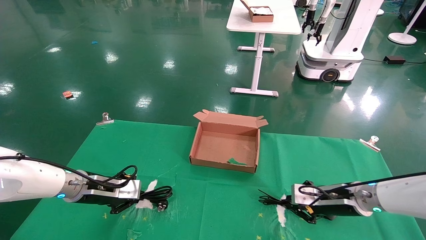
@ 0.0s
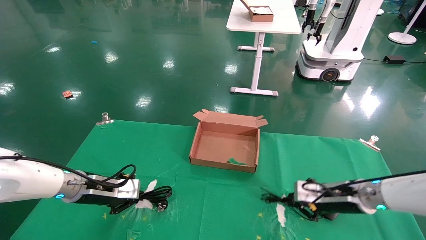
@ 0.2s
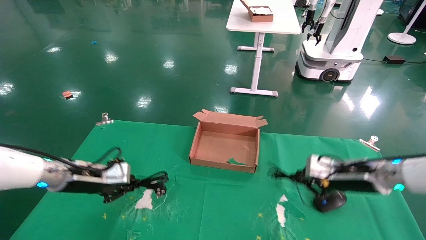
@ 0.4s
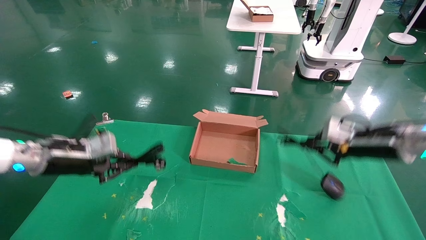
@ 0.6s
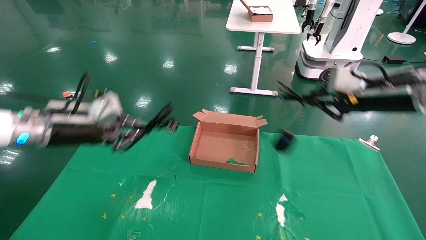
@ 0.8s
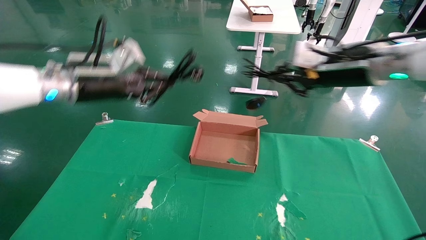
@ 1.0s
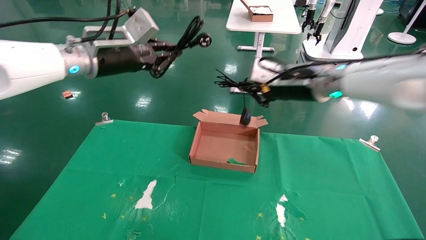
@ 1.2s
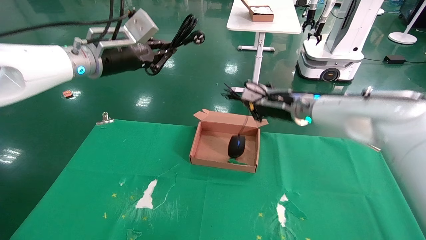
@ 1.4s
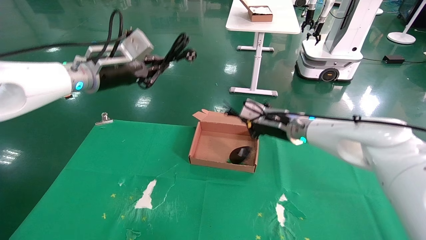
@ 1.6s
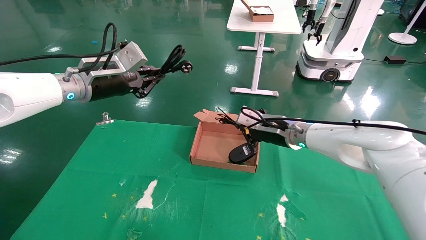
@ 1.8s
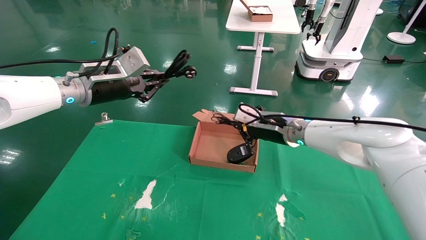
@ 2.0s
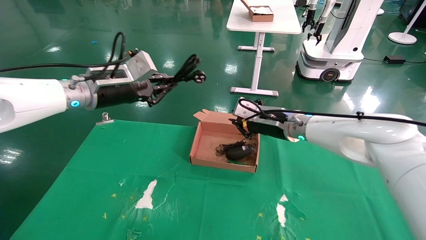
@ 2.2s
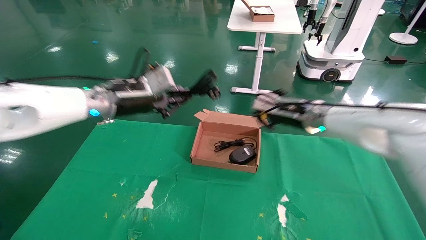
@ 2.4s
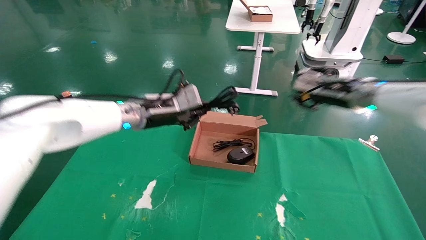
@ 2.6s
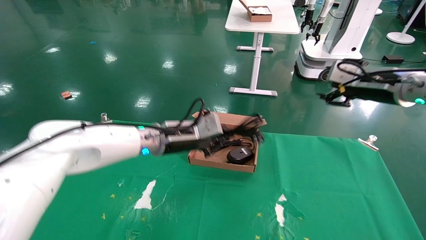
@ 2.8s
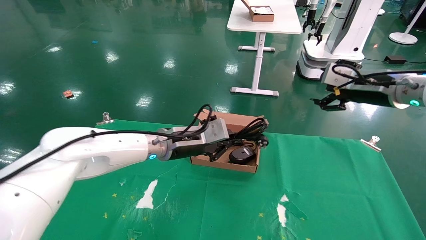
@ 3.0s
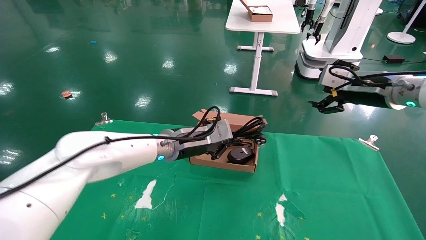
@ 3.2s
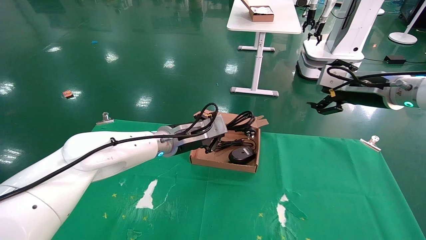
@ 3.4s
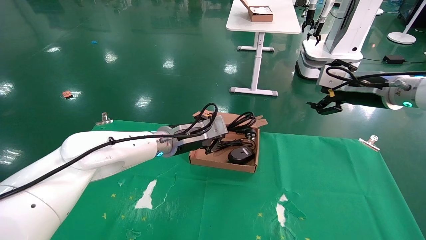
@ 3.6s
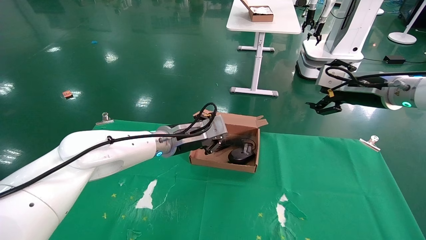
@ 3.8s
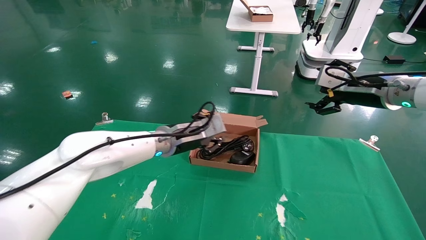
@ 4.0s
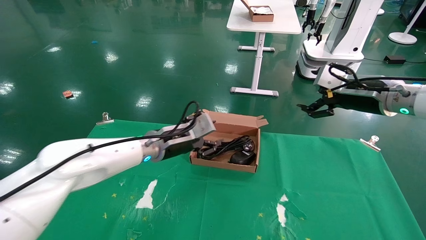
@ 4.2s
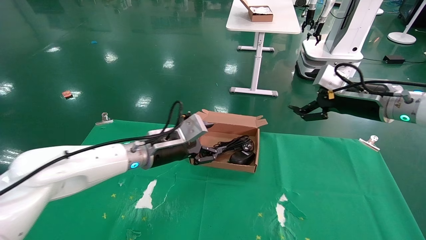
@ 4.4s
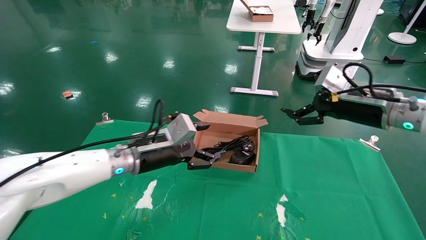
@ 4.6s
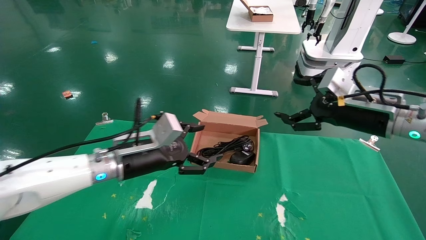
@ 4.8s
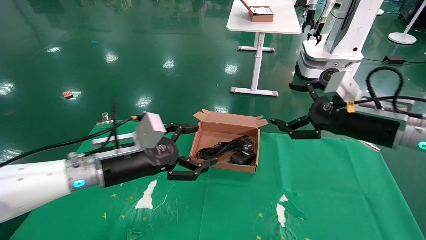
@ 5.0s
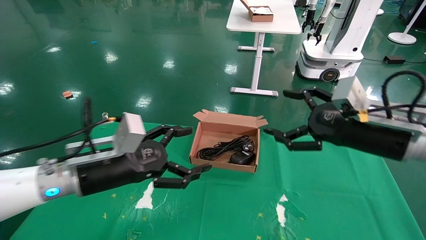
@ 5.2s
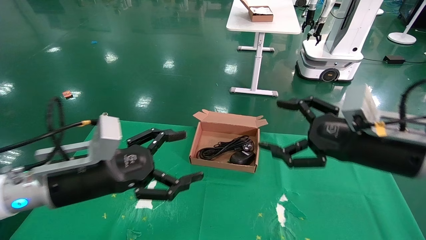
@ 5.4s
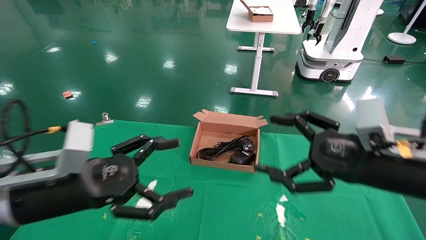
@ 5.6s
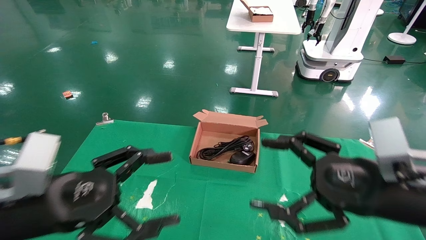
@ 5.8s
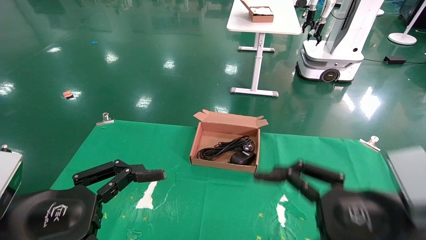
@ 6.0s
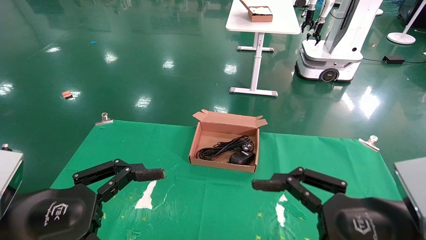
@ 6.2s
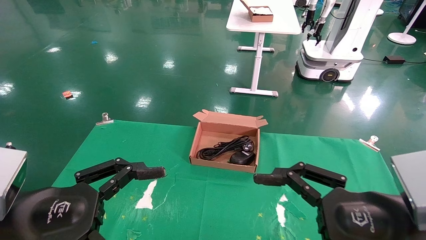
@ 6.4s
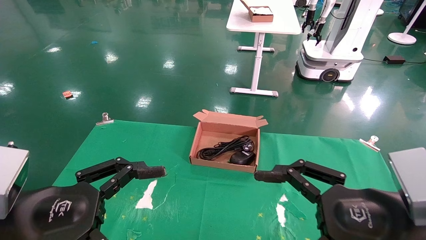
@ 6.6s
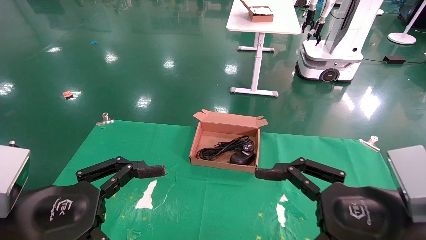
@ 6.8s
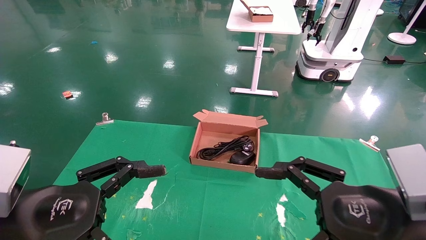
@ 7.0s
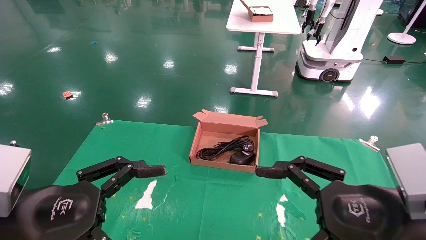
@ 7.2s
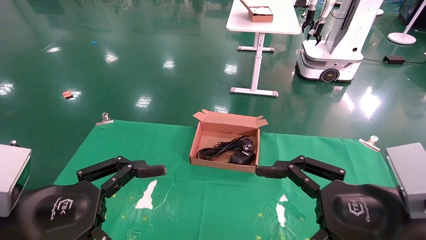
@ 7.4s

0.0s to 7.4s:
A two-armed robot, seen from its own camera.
Step, 0.0s to 5.0s: Place the mouse and power cord into the box.
0.0s to 1.4s: The right gripper is displaced upward and to the left by roughly 20 cm. Meanwhile the left gripper is displaced upward by some 25 cm.
1.4s to 3.0s: The right gripper moves to the right, approximately 15 cm, and opens its fingers. The left gripper heads downward and to the right, covering about 20 cm.
3.0s to 4.4s: The left gripper opens its fingers.
4.4s to 6.0s: The left gripper shifts about 25 cm backward and to the left, and opens up; the right gripper heads backward, covering roughly 20 cm.
6.0s to 7.4s: The two grippers keep their place.

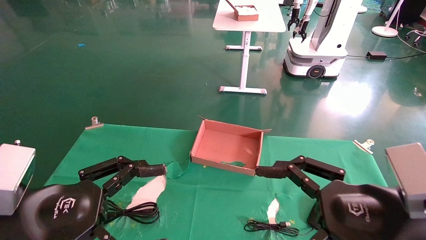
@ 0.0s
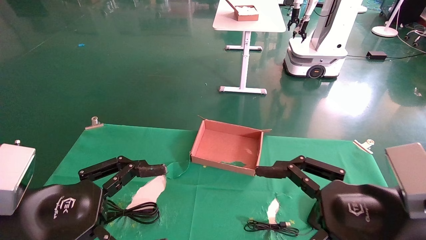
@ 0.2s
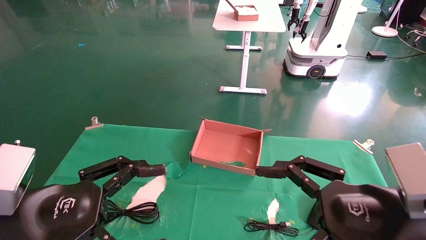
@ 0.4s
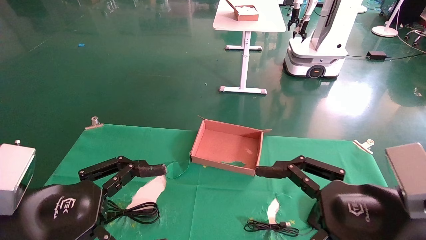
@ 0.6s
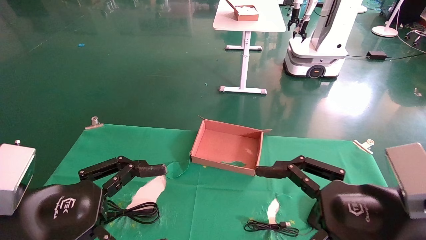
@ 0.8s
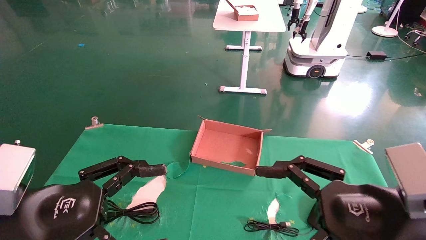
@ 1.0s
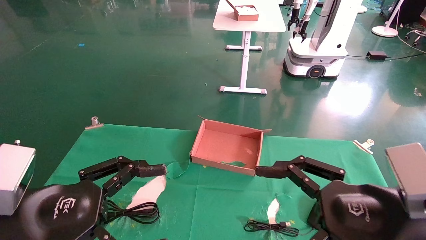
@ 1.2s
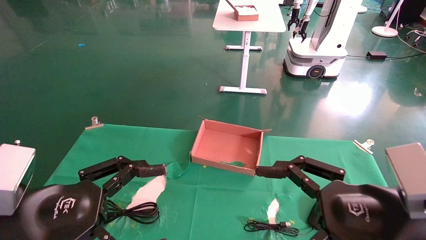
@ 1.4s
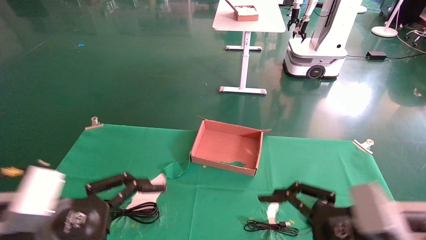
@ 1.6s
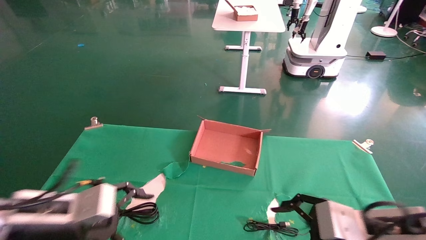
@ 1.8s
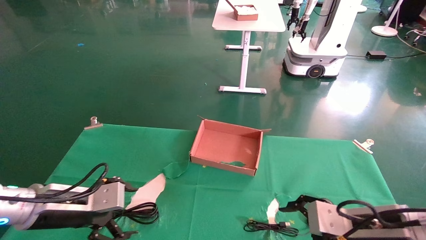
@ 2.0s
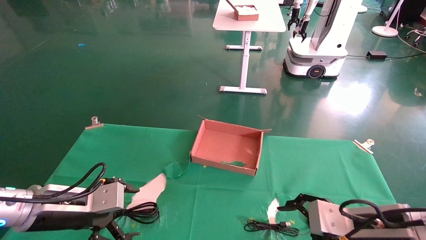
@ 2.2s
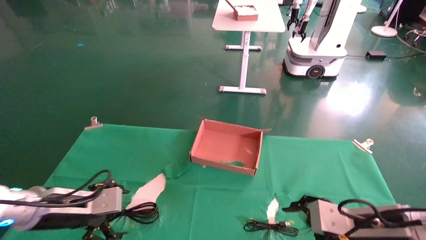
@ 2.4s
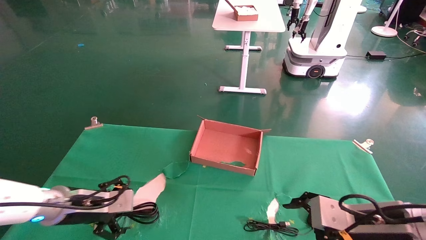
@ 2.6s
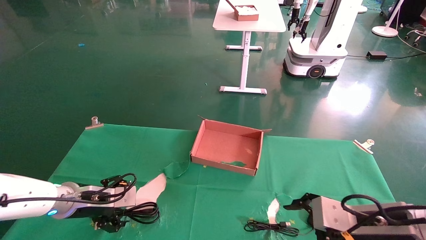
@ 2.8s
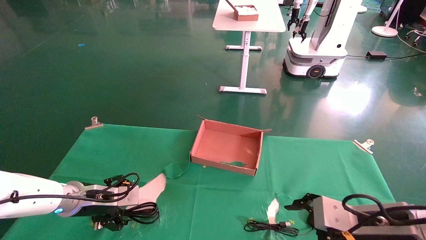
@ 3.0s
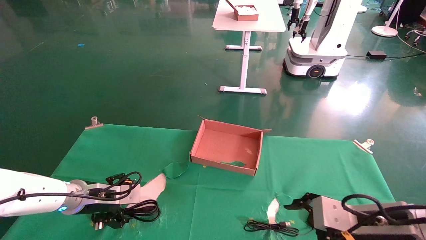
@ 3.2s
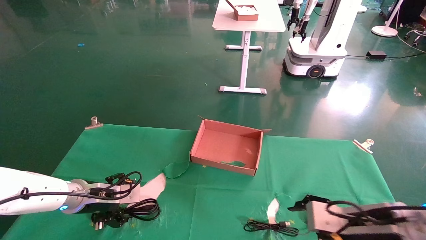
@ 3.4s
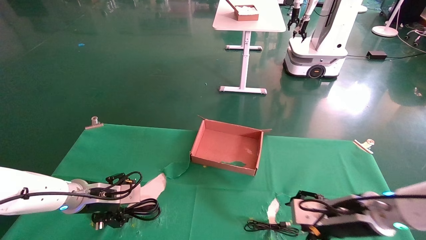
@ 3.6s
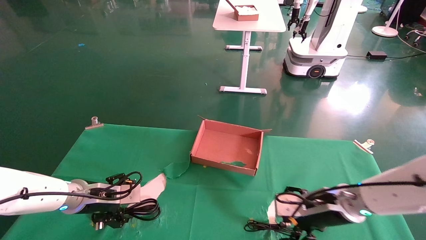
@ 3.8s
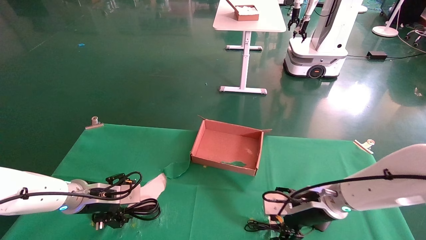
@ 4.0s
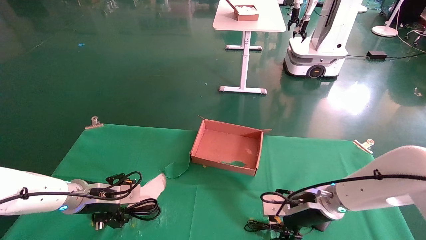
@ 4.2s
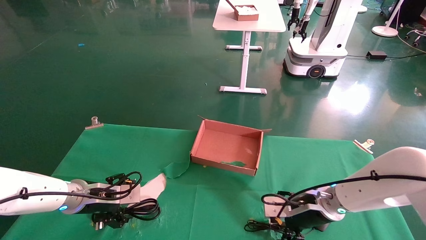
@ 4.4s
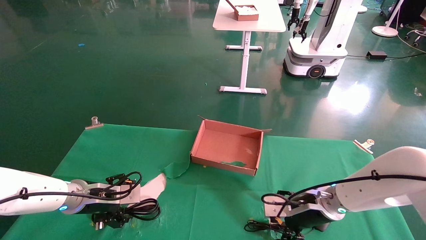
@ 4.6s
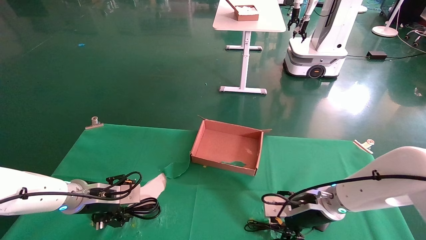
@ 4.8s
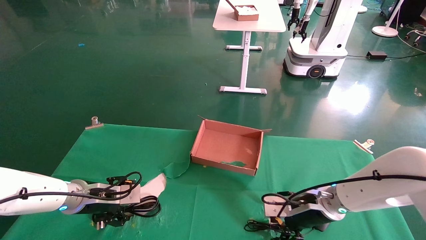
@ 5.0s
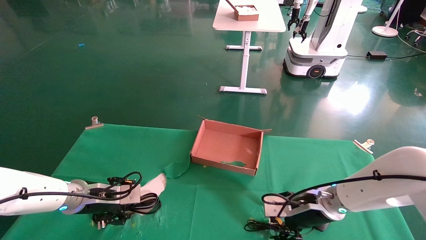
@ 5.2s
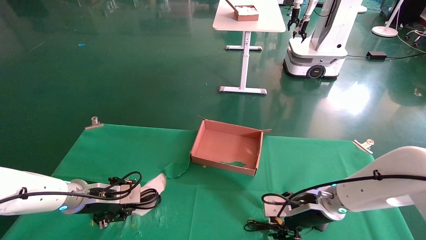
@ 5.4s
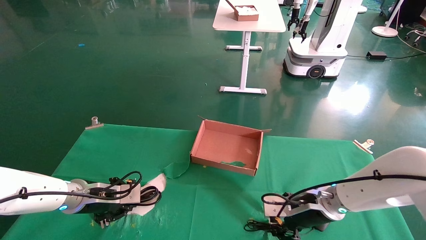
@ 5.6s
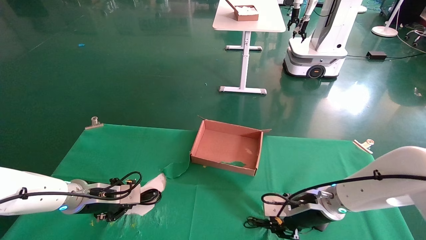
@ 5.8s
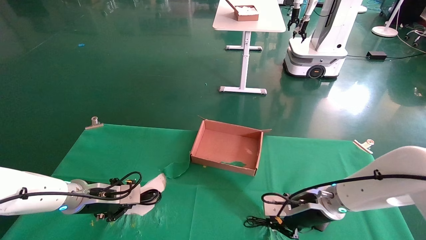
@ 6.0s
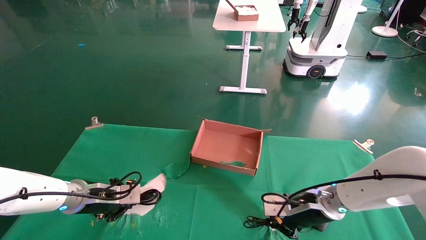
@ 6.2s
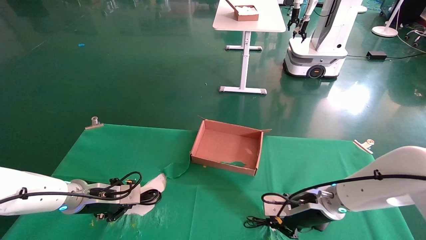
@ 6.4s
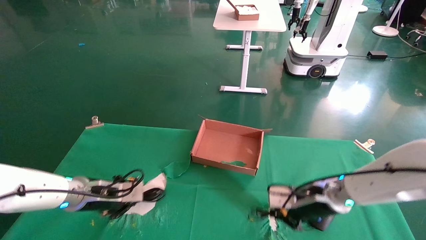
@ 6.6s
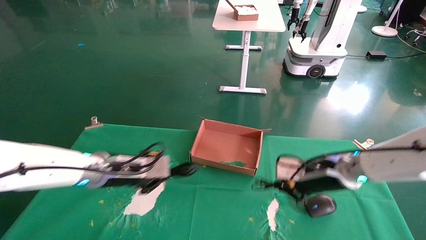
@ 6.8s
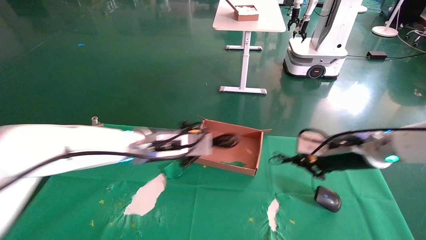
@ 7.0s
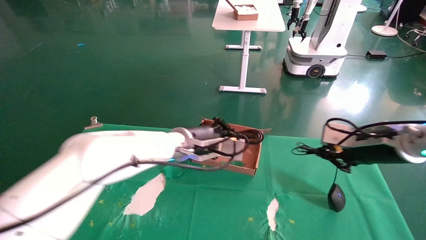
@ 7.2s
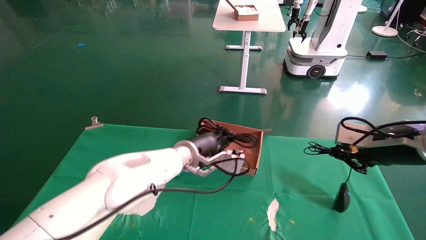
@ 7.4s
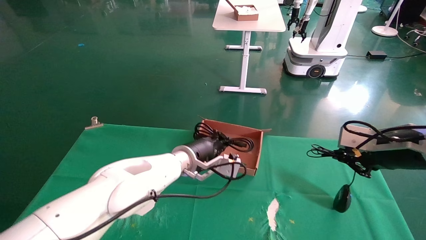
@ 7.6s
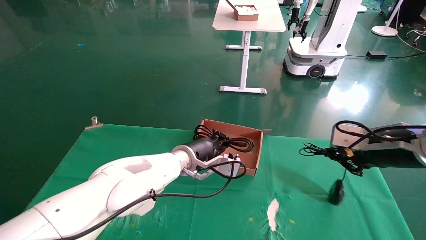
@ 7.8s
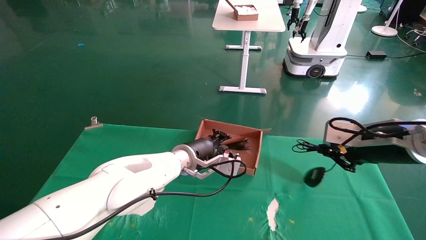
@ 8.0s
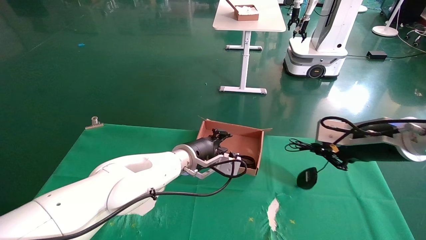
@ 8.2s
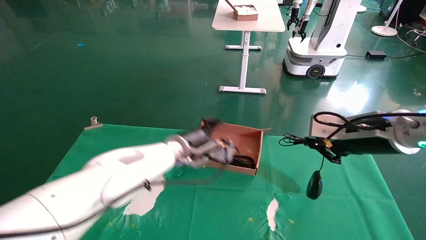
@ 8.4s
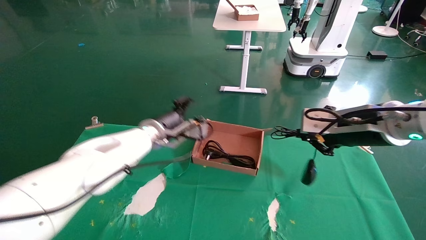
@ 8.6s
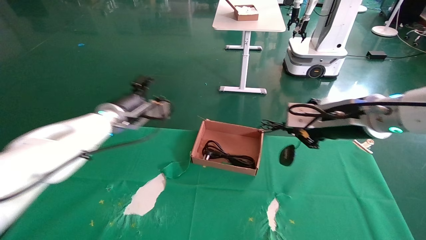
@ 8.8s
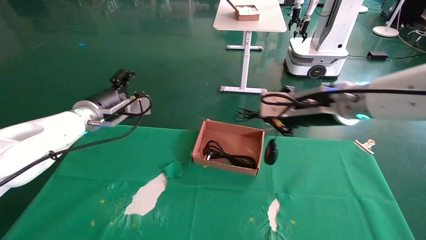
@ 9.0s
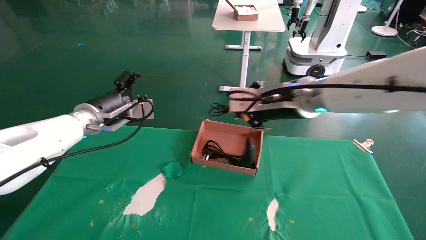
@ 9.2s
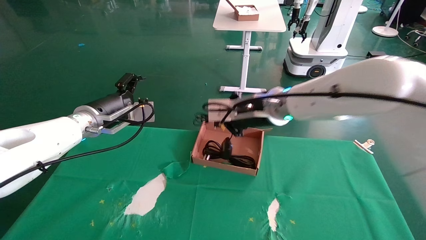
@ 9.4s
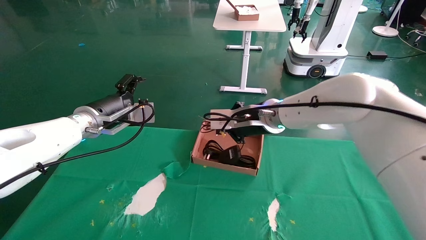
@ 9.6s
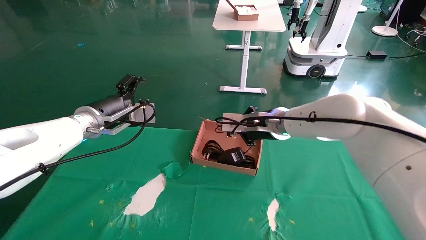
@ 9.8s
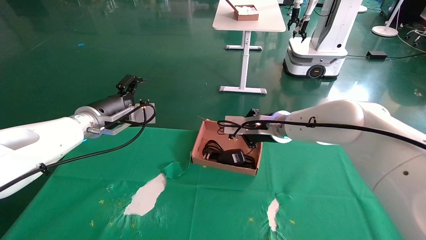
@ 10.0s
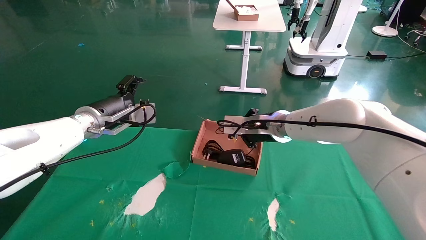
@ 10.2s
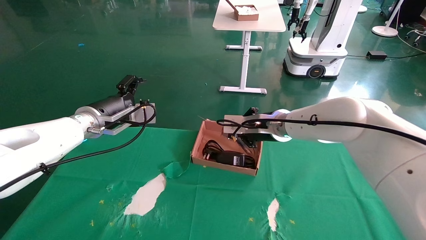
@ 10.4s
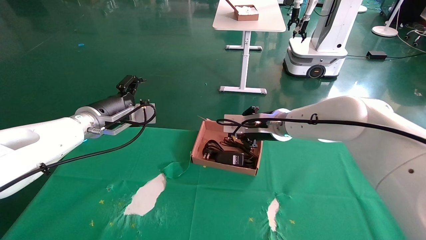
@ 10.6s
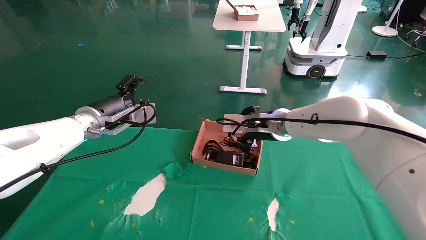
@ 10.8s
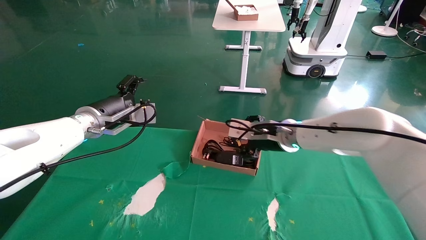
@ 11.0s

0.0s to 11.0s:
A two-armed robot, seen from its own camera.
Step, 2.0s to 6.4s: Grab and lift both the mouse and power cord from the accessory packaging area at the same time.
0.0s to 1.6s: The left gripper moves approximately 5 cm.
1.6s to 3.2s: The left gripper travels forward by some 20 cm. The right gripper heads forward, covering approximately 5 cm.
3.2s to 4.8s: The right gripper moves forward and to the left, about 15 cm.
4.8s to 6.2s: The right gripper closes up. Meanwhile the left gripper closes its fingers.
6.2s to 7.8s: The right gripper is displaced upward, to the right and backward by about 20 cm. Meanwhile the left gripper heads to the right, covering roughly 25 cm.
7.8s to 9.4s: The right gripper is displaced to the left and forward by roughly 25 cm. The left gripper shifts roughly 20 cm to the left and upward, and opens.
9.4s to 11.0s: The right gripper shifts about 10 cm downward, and opens up.
